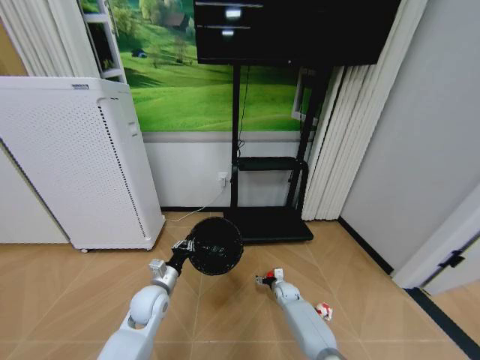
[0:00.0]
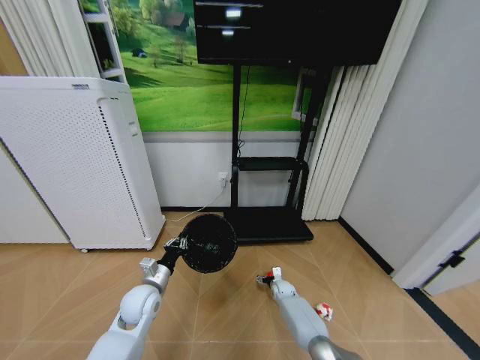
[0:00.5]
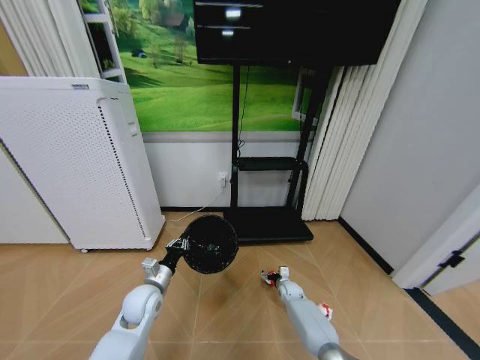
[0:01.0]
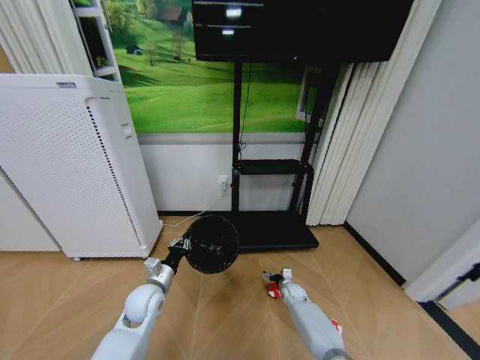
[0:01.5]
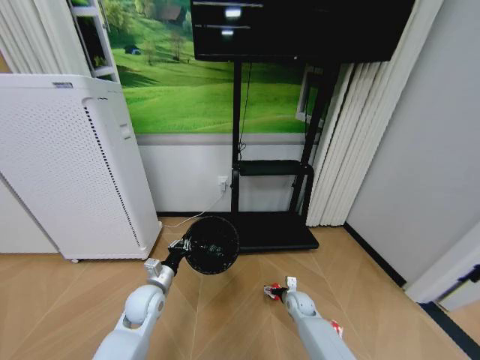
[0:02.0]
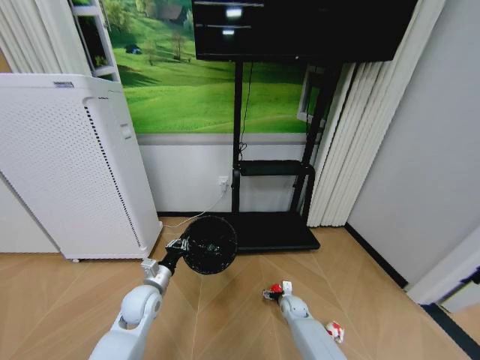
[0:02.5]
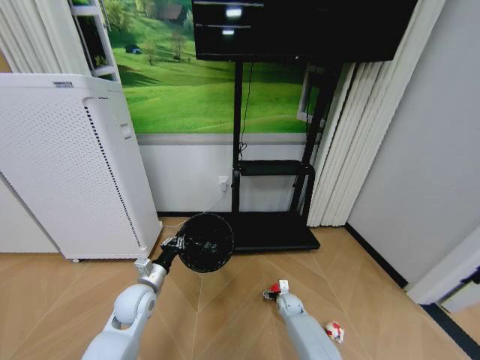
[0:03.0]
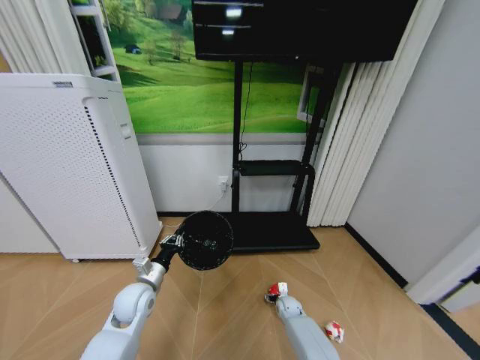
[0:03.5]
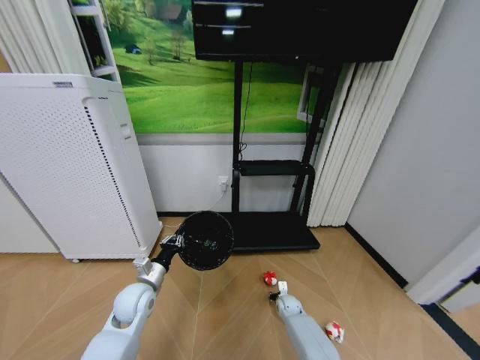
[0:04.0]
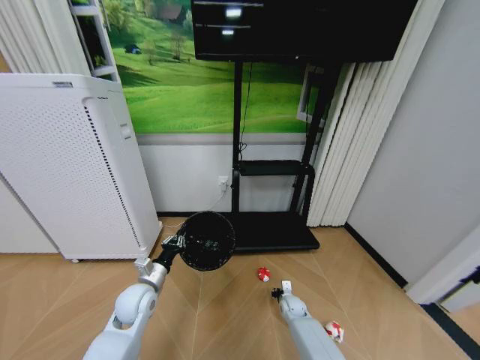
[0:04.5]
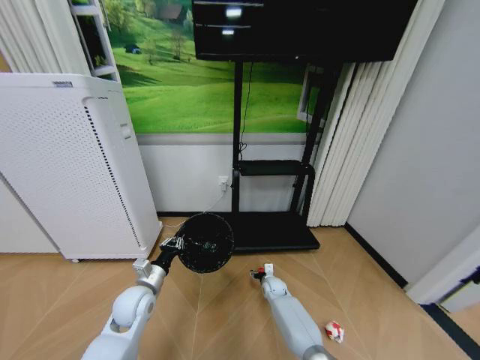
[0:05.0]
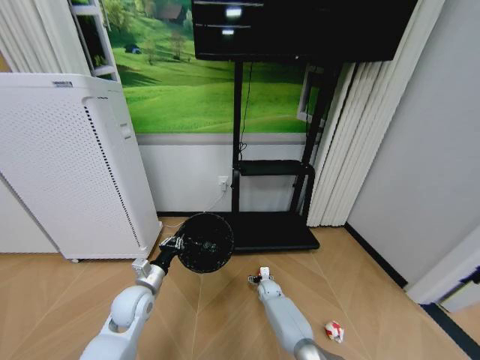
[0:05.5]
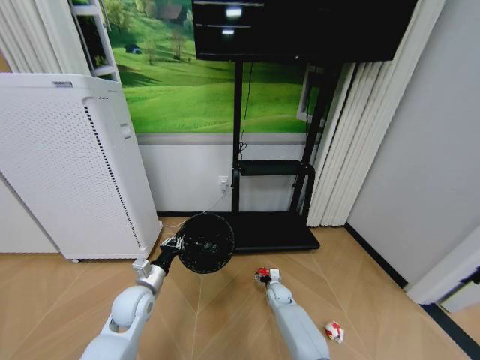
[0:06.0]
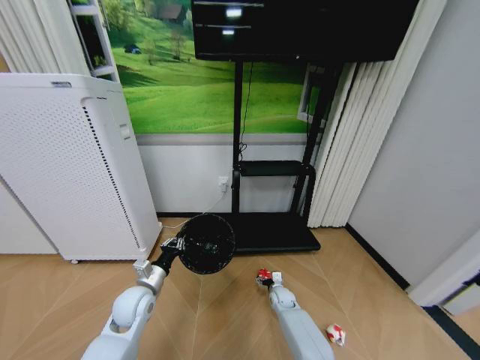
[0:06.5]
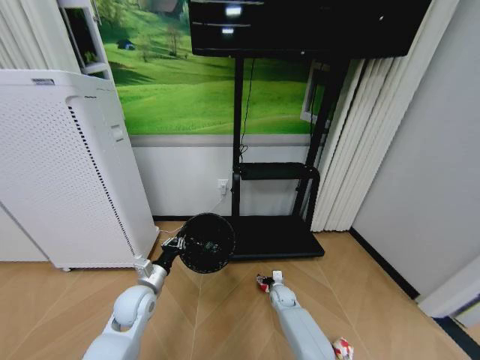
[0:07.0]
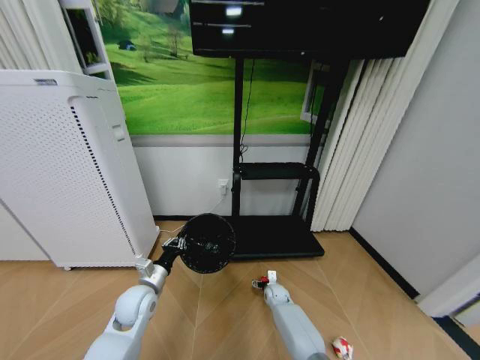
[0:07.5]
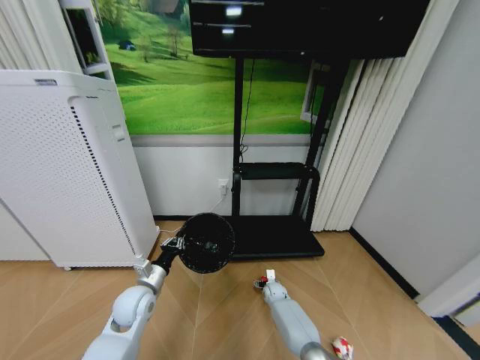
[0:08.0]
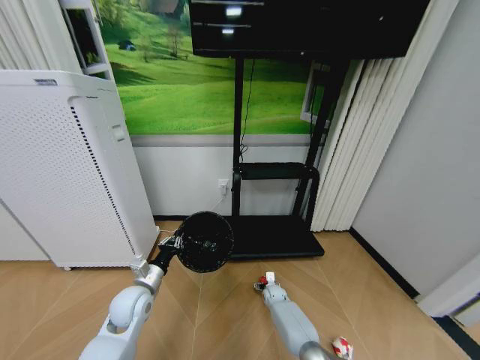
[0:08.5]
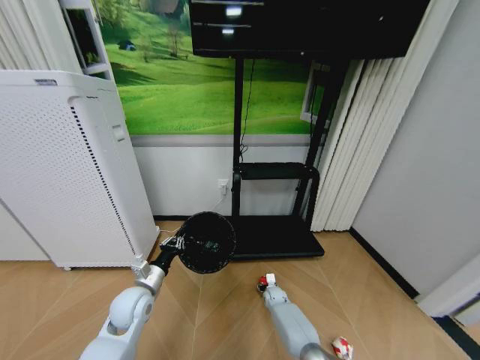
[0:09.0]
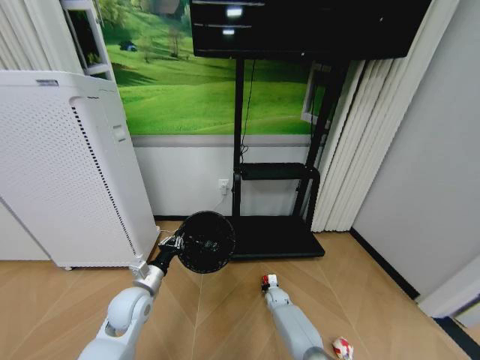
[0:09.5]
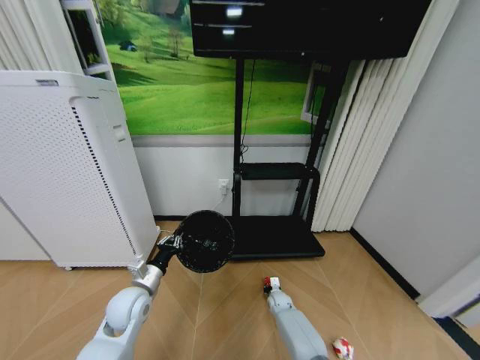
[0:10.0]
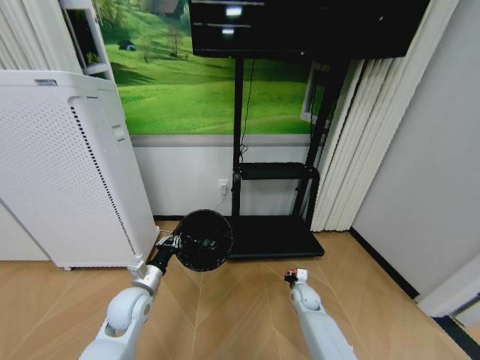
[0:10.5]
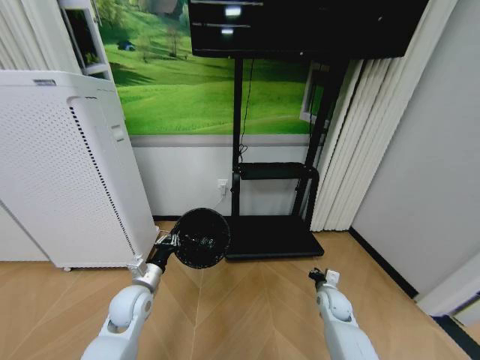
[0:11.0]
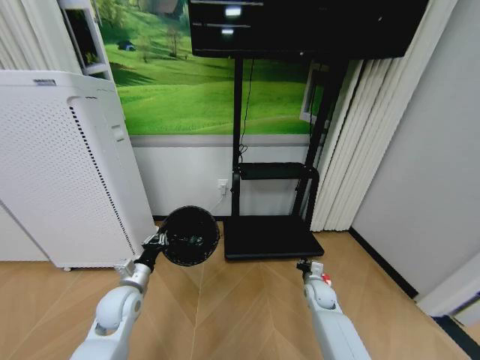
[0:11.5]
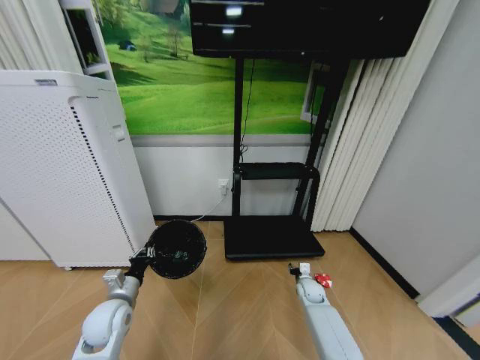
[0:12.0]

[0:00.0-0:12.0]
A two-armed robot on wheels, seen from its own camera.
Task of the whole recording: Pick up the trash bin and place the garbage on the floor into it.
0:00.0 to 0:02.0: The right gripper is displaced backward by some 5 cm.
0:02.0 to 0:04.0: The right gripper heads downward, covering approximately 5 cm, and closes its fingers.
0:04.0 to 0:06.0: The right gripper ends up roughly 5 cm from where it was, and opens up.
0:06.0 to 0:08.0: The grippers make only small movements.
0:08.0 to 0:10.0: The right gripper closes.
0:10.0 to 0:12.0: The right gripper moves upward and to the right, roughly 15 cm; the left gripper moves about 5 cm.

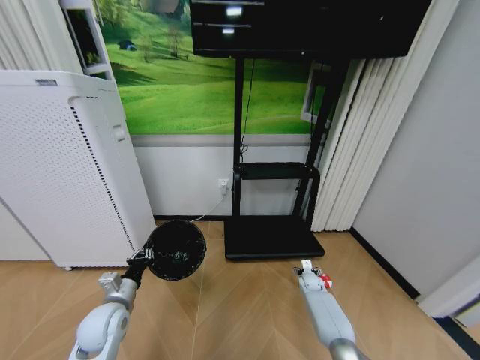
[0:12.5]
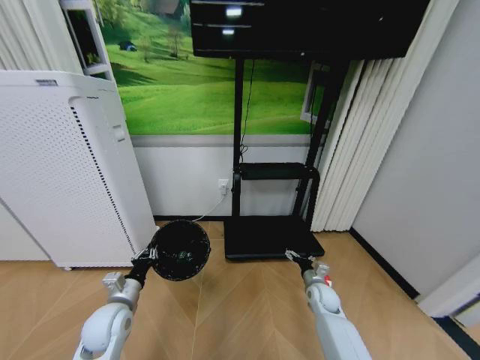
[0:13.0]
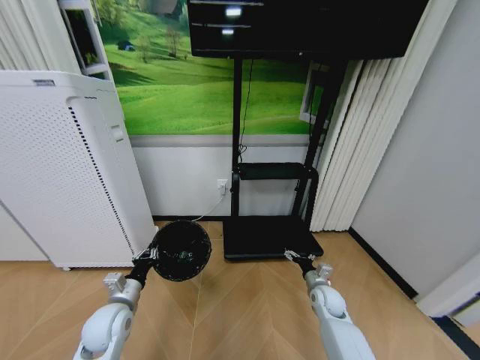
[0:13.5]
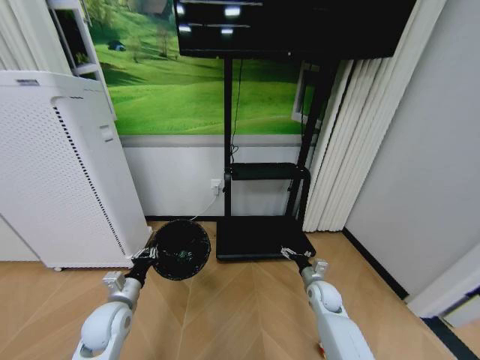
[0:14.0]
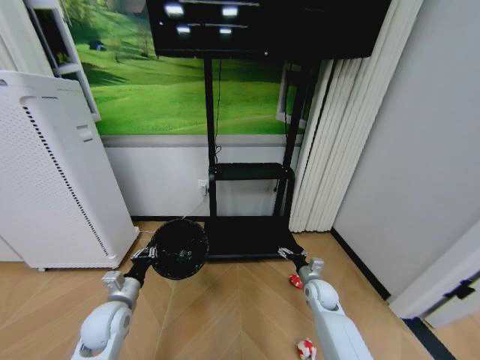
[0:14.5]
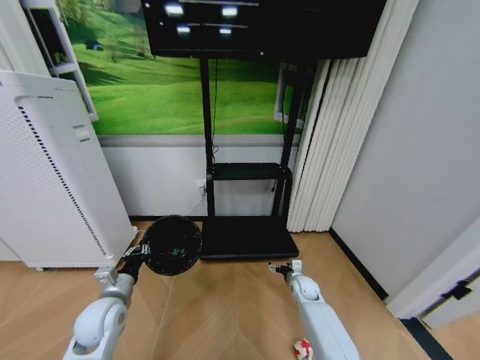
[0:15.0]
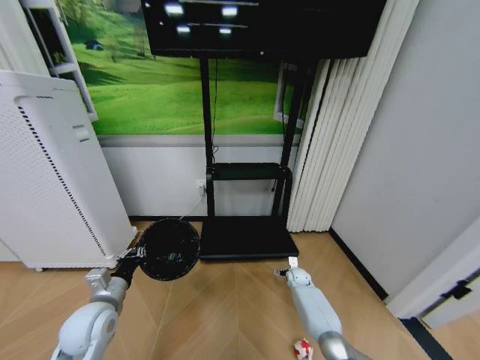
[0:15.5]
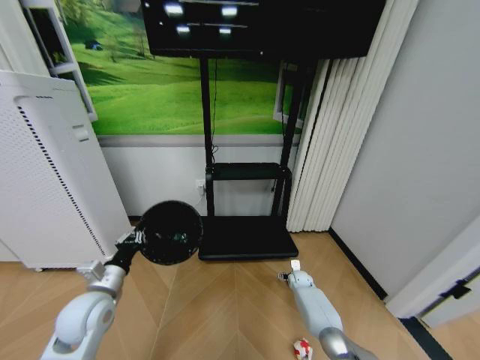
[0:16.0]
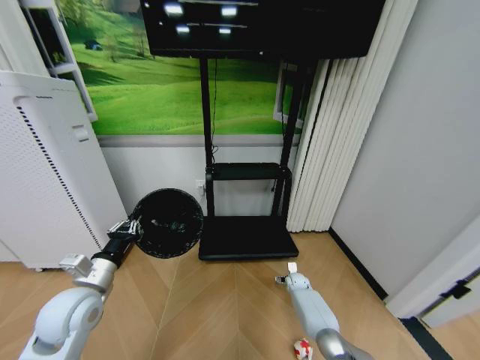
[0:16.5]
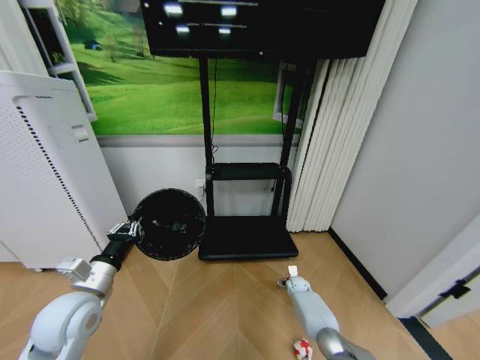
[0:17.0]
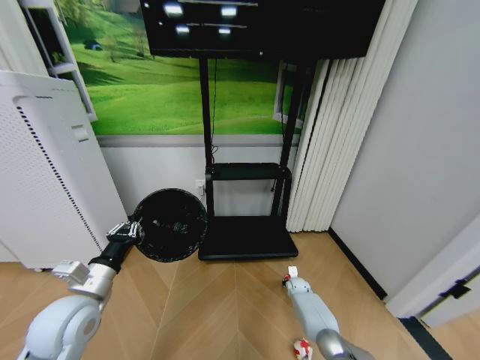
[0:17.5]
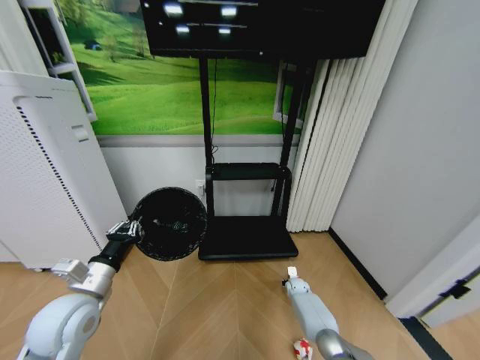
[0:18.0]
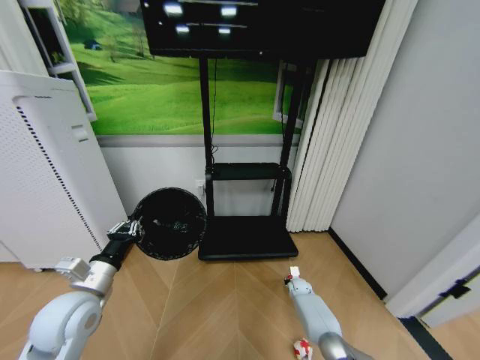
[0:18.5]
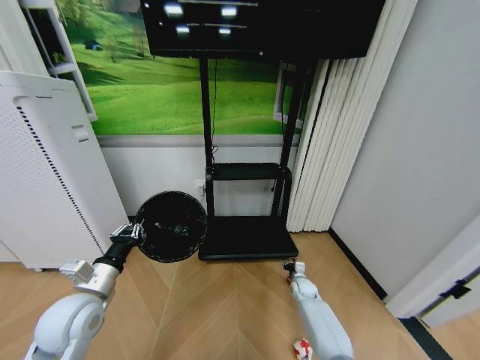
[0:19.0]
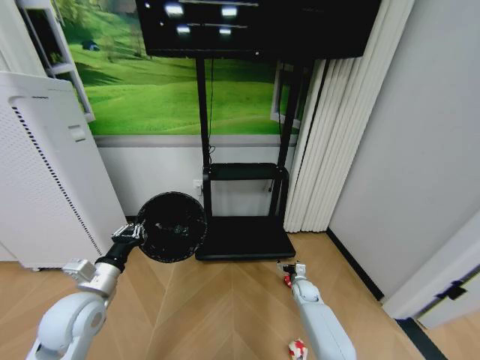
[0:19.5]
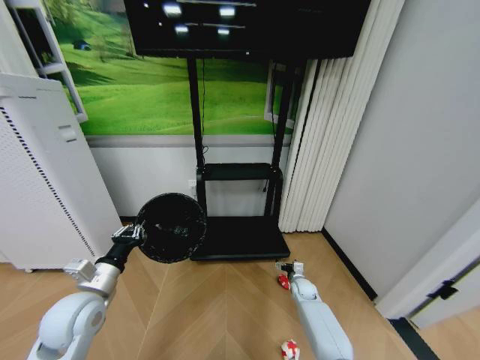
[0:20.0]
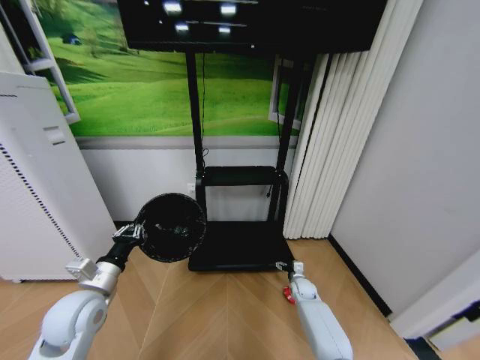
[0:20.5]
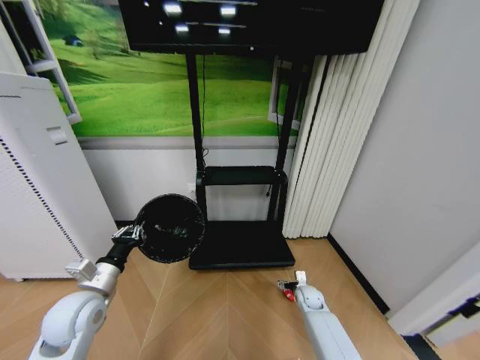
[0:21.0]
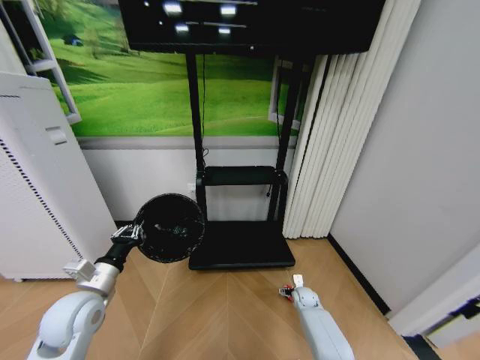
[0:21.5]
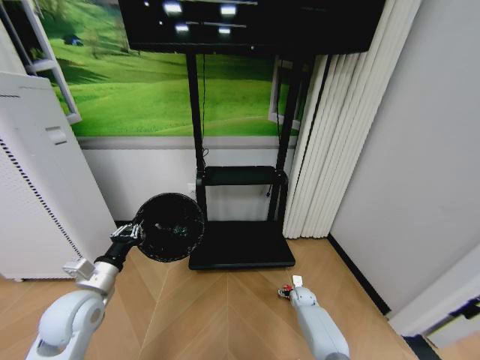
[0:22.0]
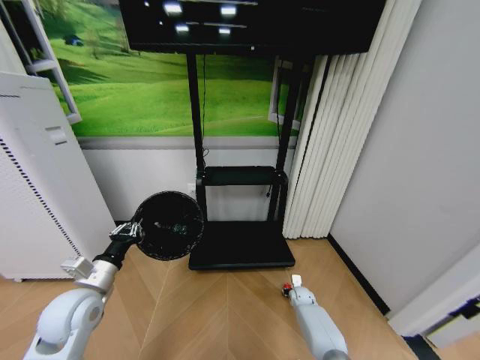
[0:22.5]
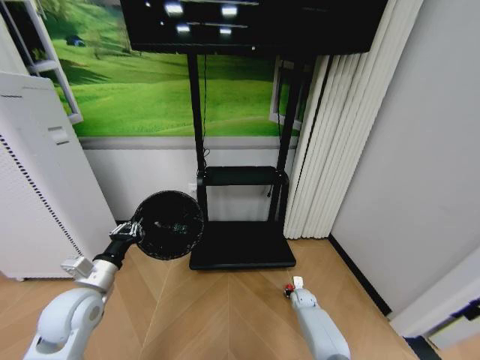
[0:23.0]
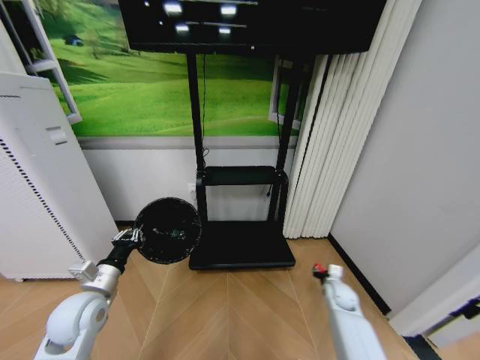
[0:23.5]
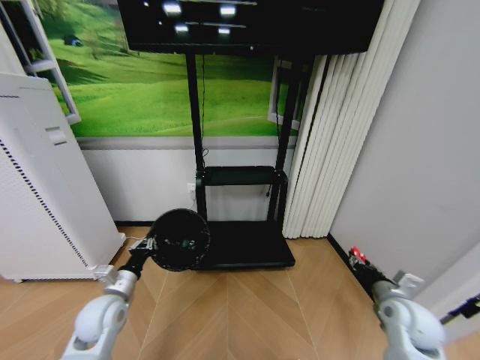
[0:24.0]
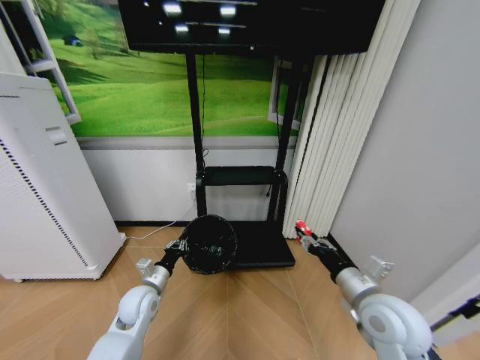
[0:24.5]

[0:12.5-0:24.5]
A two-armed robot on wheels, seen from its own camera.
Task of the whole recording: Pick up the trash bin and place the garbage on the floor into it.
0:12.5 to 0:14.5: The right gripper goes some 15 cm upward and backward.
0:14.5 to 0:16.5: The left gripper goes approximately 10 cm upward, while the right gripper travels downward and forward by about 15 cm.
0:16.5 to 0:18.5: The right gripper closes.
0:18.5 to 0:20.5: The right gripper ends up about 5 cm from where it was, and opens up.
0:20.5 to 0:22.5: The right gripper goes about 5 cm downward, and closes.
0:22.5 to 0:24.5: The left gripper moves downward, to the right and forward, about 15 cm. Meanwhile the right gripper moves upward and backward, about 40 cm.

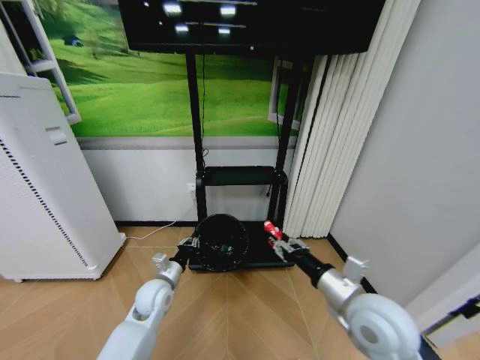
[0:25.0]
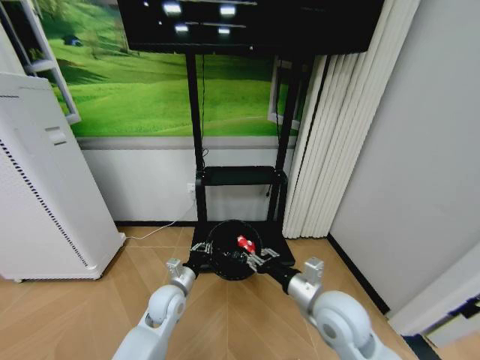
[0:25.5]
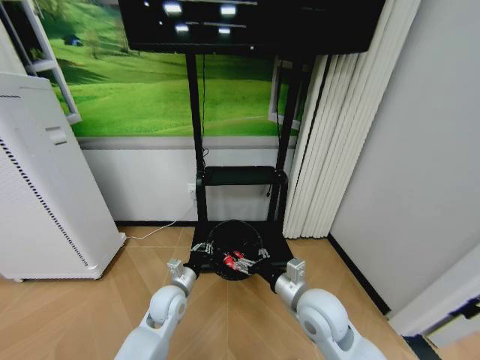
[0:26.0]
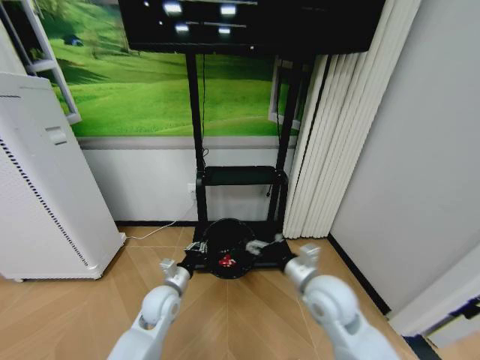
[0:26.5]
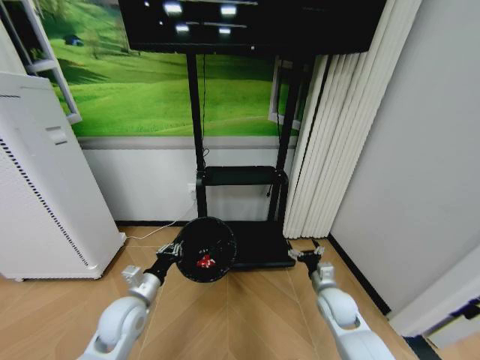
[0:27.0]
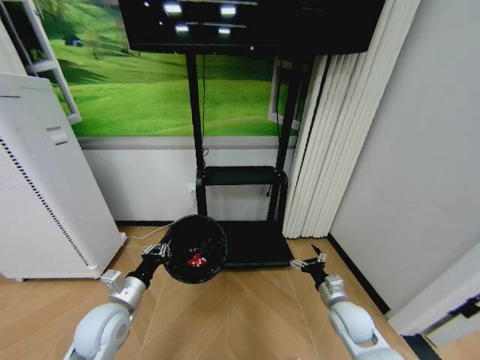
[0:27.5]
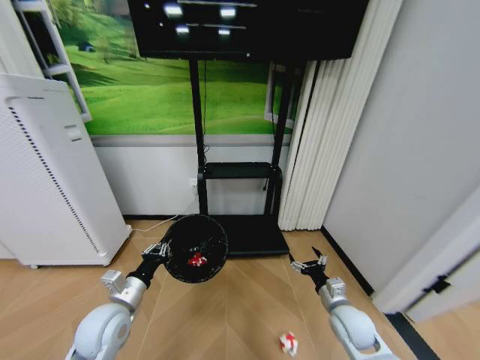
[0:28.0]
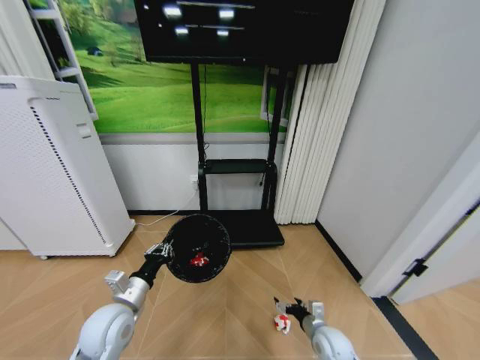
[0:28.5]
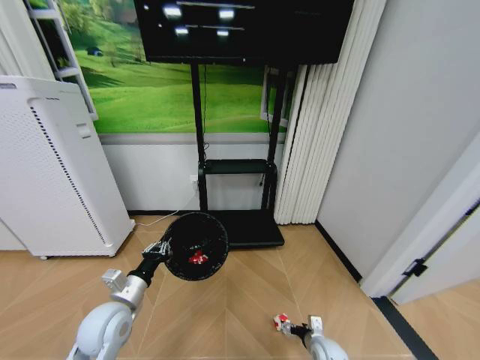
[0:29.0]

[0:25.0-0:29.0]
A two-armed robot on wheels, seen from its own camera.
Task of the whole recording: Pick up the trash bin and place the garbage on the floor into it.
0:25.0 to 0:27.0: The right gripper is displaced downward and forward by some 15 cm, and opens, while the left gripper ends up about 5 cm from where it was.
0:27.0 to 0:29.0: The right gripper is displaced downward by approximately 25 cm, while the left gripper ends up roughly 5 cm from where it was.
